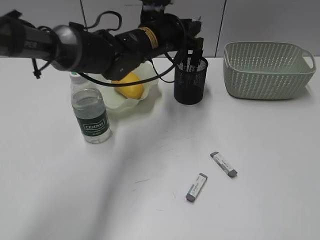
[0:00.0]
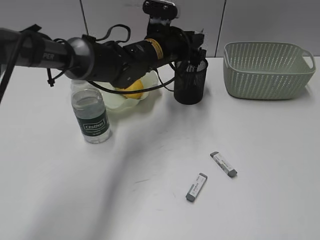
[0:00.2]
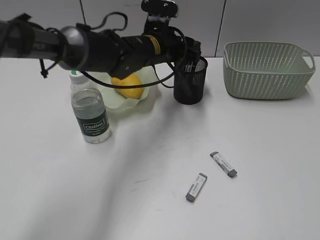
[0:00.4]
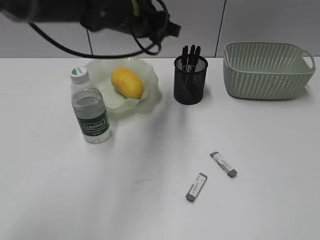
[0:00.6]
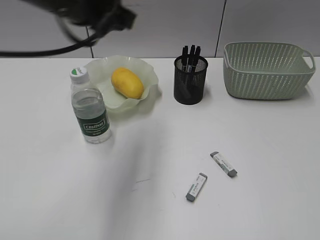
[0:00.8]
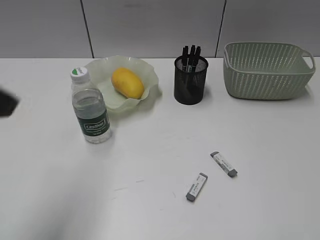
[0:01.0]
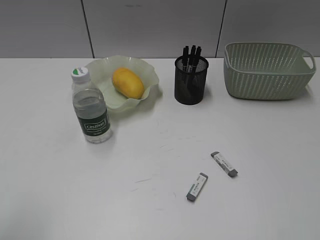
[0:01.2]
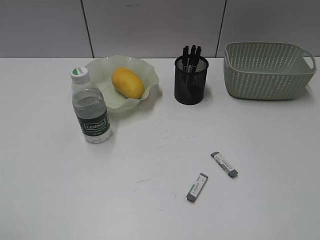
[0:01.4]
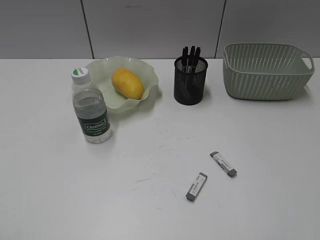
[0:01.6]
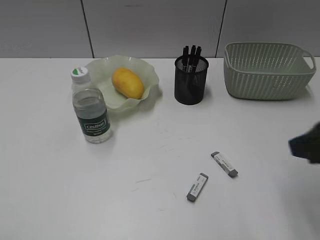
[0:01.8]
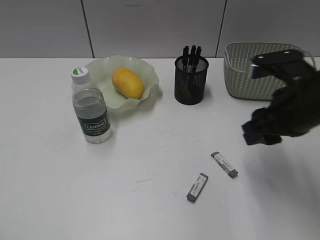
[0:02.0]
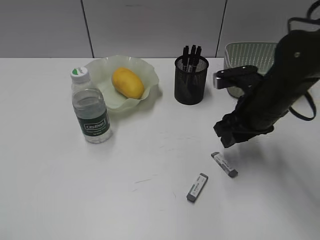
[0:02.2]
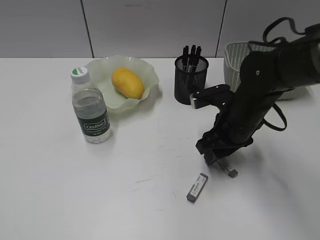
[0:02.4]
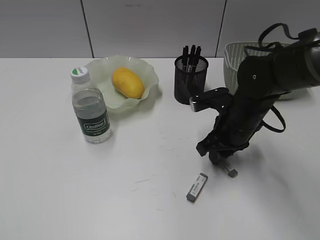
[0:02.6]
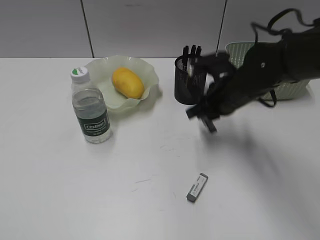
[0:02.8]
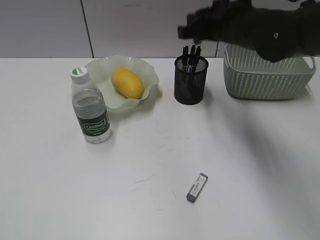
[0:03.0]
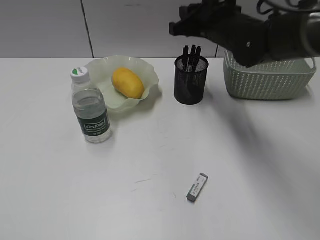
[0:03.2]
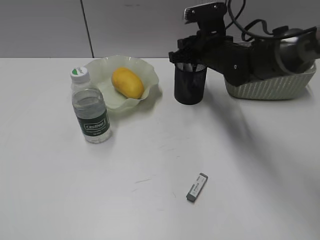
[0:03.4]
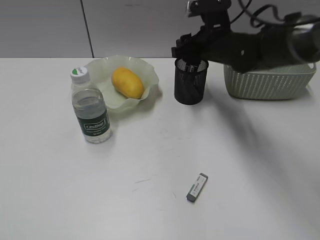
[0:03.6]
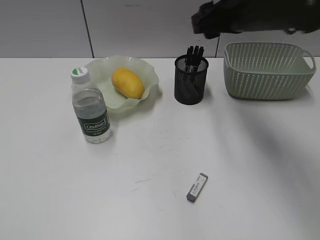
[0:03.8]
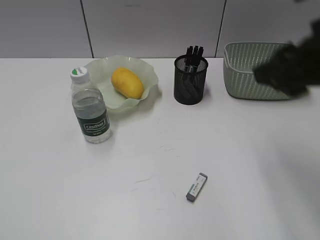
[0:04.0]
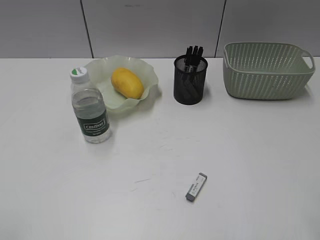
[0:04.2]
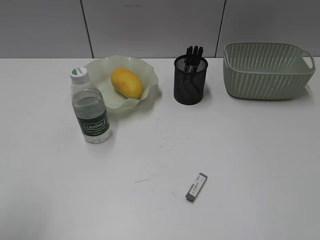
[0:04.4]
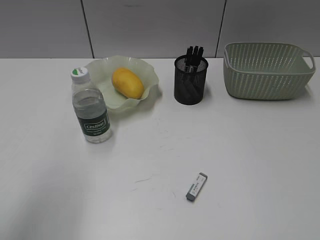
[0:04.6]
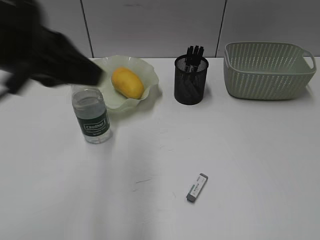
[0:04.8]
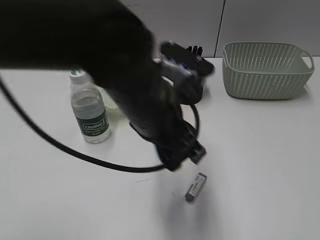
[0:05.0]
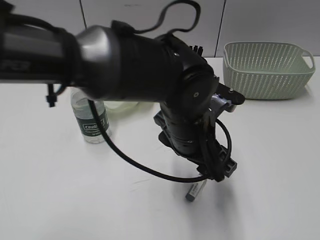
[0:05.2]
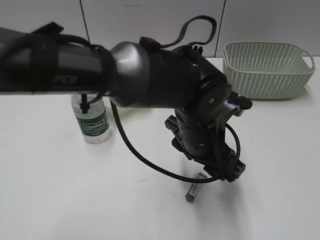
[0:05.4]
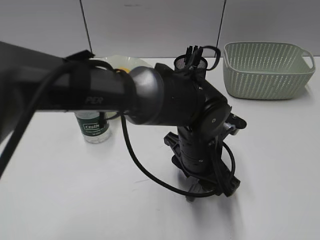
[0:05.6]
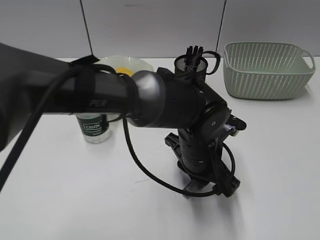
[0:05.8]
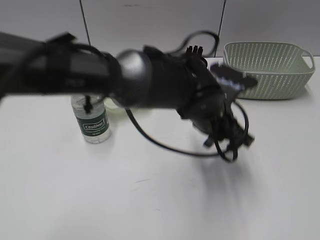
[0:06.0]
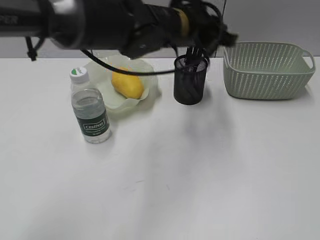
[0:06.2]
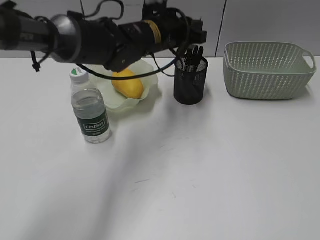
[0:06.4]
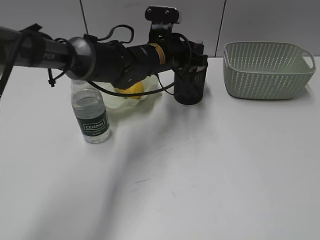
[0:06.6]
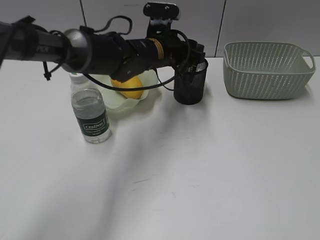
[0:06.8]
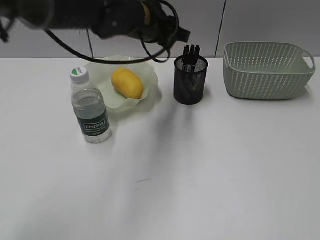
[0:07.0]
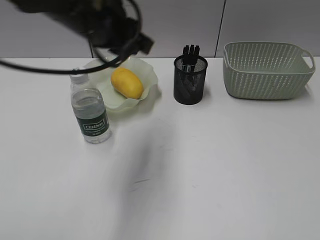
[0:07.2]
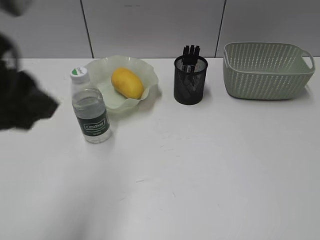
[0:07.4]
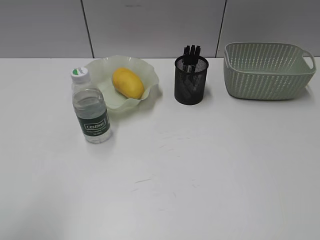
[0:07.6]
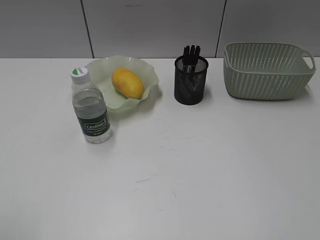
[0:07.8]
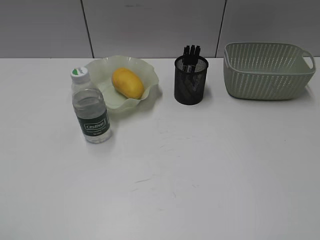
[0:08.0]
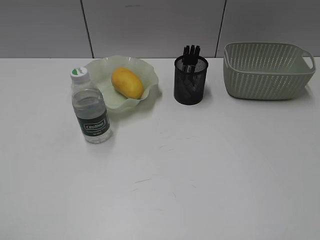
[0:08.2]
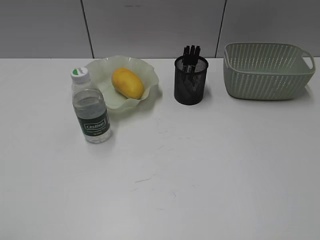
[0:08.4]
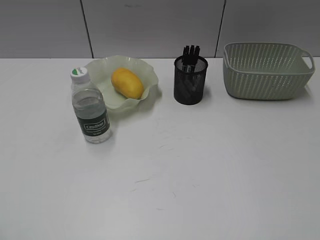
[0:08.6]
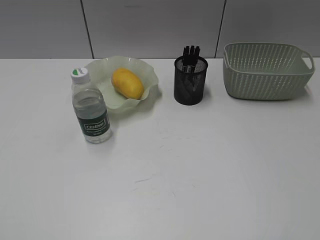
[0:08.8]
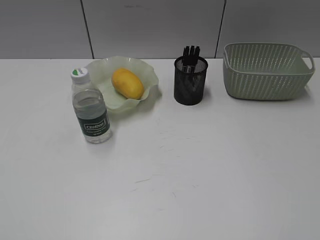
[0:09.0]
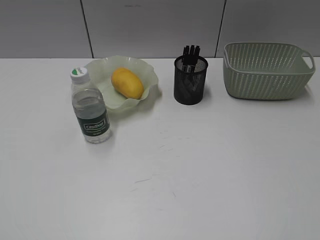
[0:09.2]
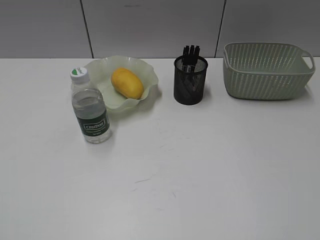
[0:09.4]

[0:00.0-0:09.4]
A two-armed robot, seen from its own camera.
Step, 0:00.6 to 0:02.6: Grasp the eraser with right gripper.
Step, 0:02.8 to 0:03.6: Place the eraser in pen holder with right gripper.
Step, 0:03.8 to 0:05.8: Grasp the eraser with left gripper.
Step, 0:06.0 to 0:06.8: Place the eraser in pen holder with left gripper.
0:00.0 to 0:01.6: The left gripper heads backward and to the left, covering approximately 50 cm.
0:01.6 to 0:03.2: The right gripper heads forward and to the left, covering approximately 40 cm, and closes.
0:03.2 to 0:04.8: The left gripper moves forward and to the right, some 25 cm. Meanwhile the right gripper travels backward and to the right by roughly 50 cm, and opens its fingers.
0:04.8 to 0:06.2: The left gripper is displaced to the right, forward and downward by some 25 cm, and opens and closes again.
0:06.2 to 0:07.8: The left gripper shifts some 50 cm to the left and backward, and opens its fingers.

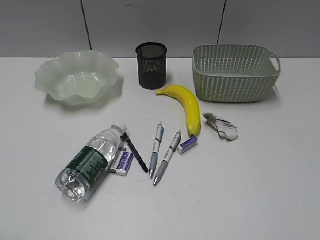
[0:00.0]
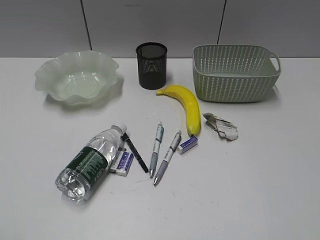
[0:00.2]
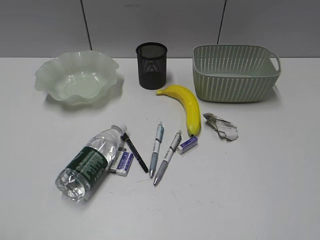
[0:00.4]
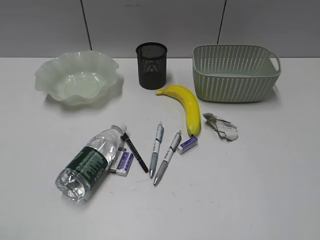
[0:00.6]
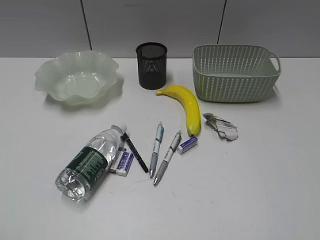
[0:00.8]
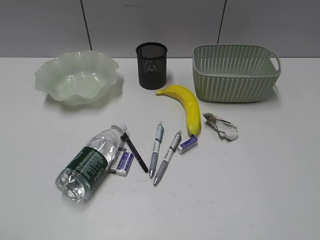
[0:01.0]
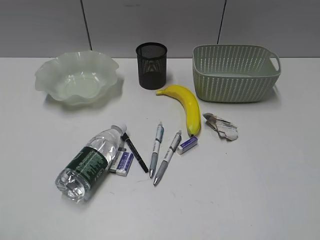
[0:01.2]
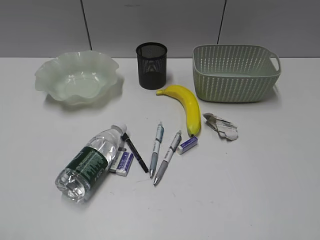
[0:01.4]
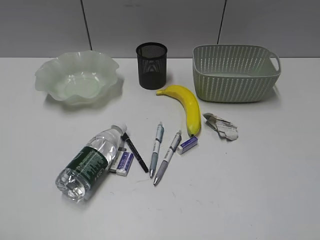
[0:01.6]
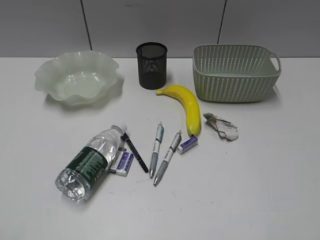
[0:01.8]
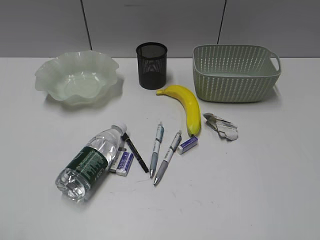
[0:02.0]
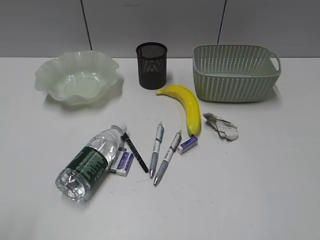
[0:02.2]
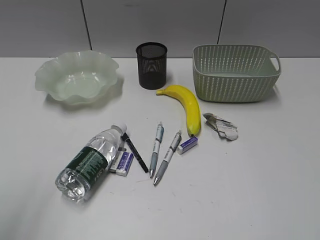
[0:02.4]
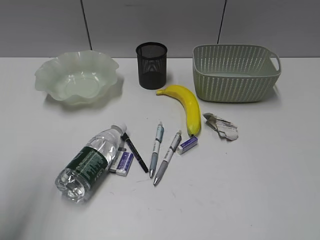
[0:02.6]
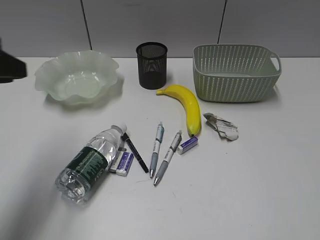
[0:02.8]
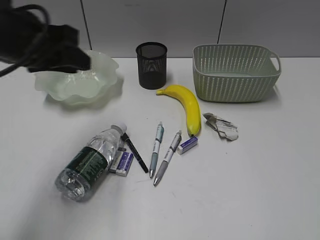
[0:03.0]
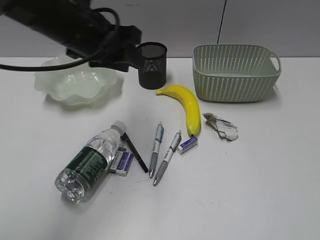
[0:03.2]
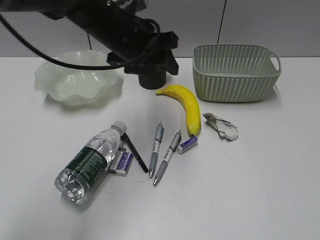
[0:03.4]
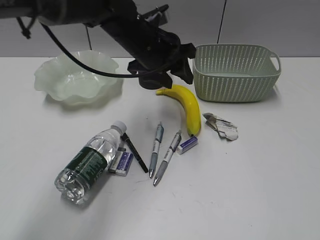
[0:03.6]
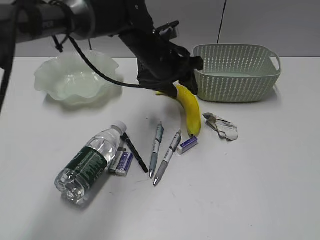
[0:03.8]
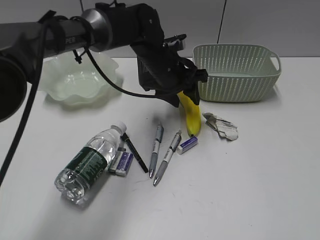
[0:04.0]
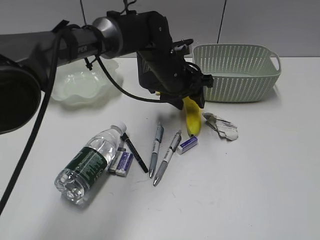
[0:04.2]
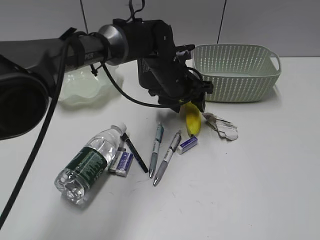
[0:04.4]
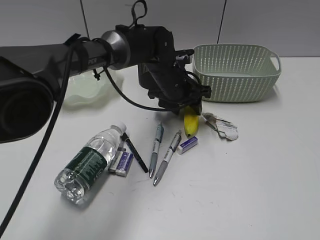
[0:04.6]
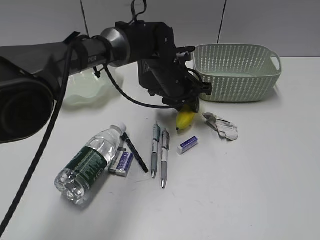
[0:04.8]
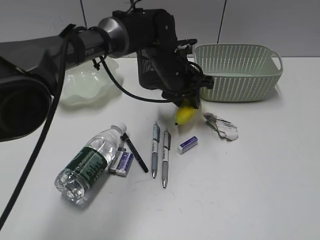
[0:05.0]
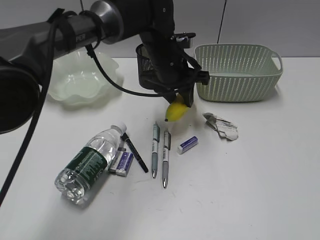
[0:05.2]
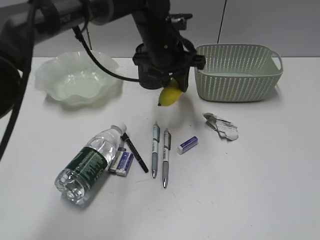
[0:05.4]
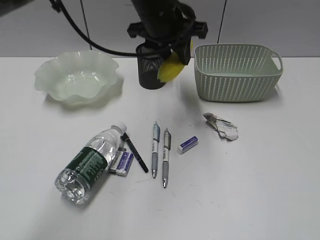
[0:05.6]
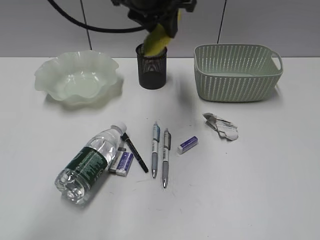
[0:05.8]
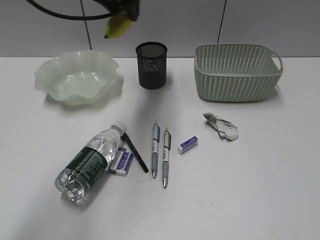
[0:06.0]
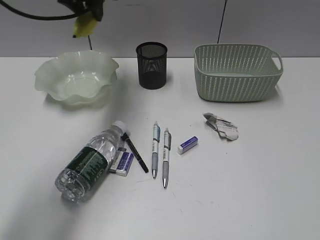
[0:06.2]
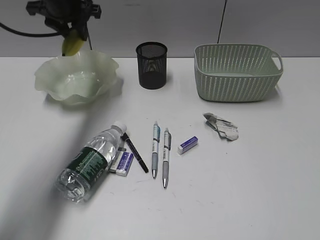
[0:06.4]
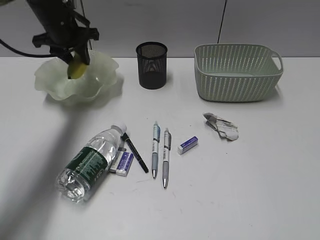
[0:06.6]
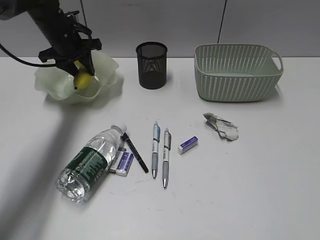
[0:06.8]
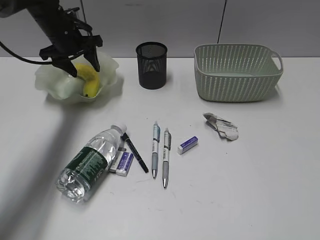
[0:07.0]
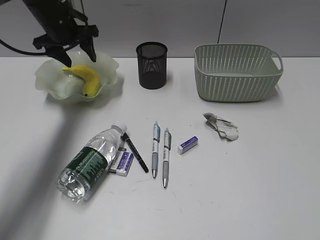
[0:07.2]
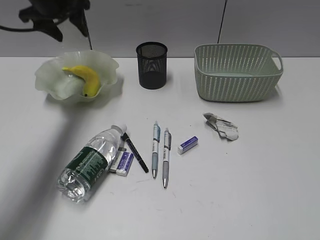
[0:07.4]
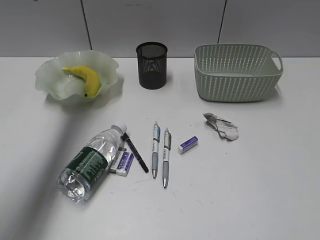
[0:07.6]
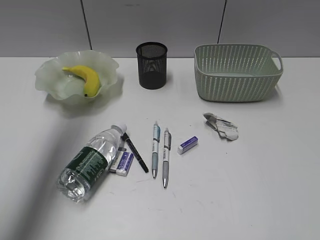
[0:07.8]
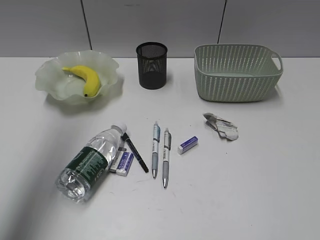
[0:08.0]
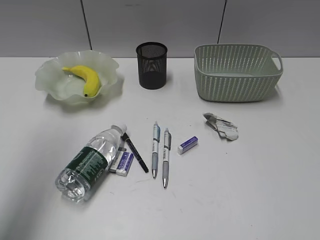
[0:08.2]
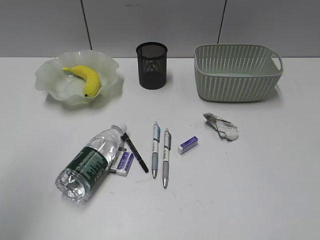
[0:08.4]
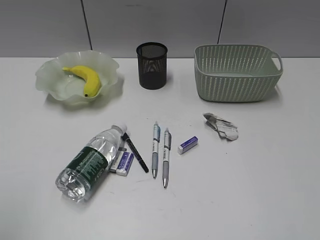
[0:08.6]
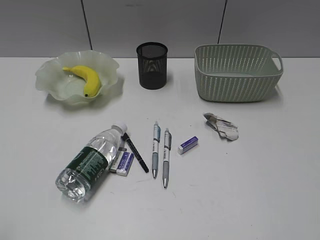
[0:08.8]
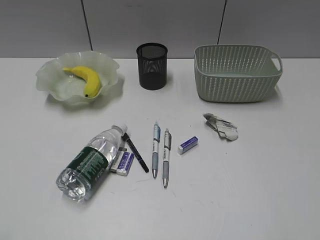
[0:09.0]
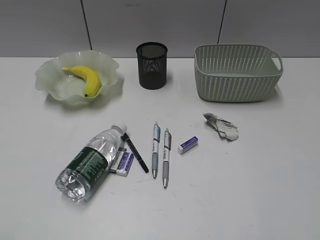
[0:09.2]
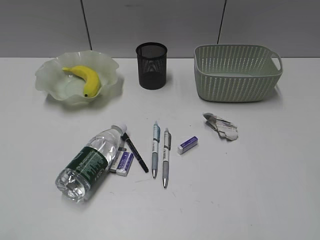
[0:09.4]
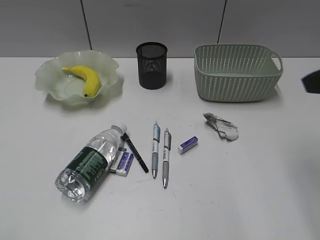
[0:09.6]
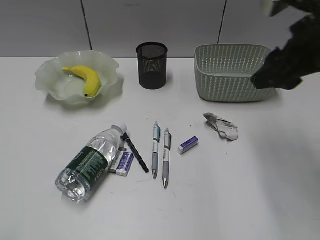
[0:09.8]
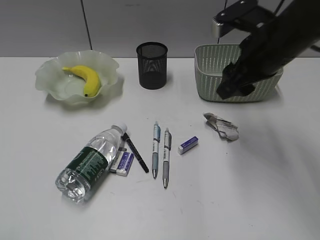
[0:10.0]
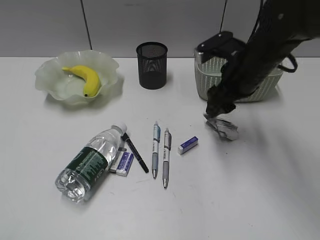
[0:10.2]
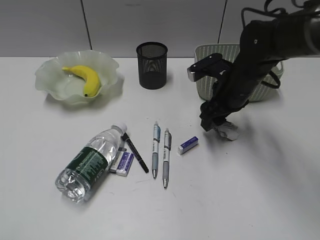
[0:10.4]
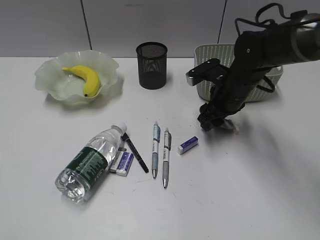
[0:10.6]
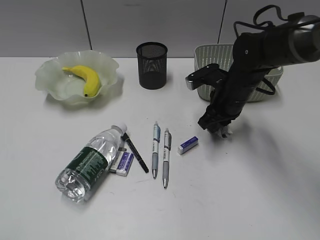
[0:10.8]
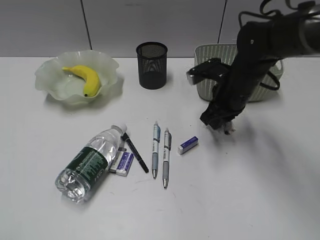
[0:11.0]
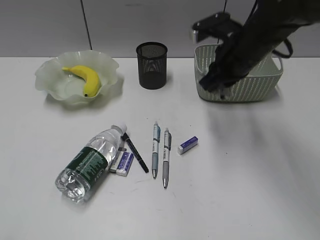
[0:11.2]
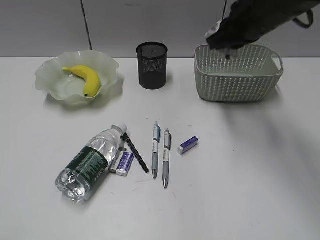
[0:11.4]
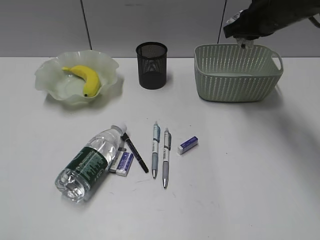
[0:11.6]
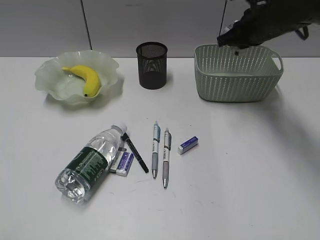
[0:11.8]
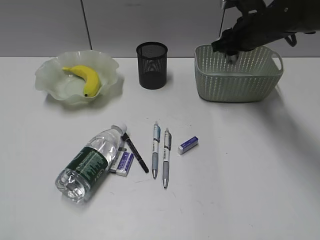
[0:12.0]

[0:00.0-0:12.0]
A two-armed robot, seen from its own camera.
Step, 0:02.0 to 0:04.6: Grasp the banana with left gripper.
Step, 0:04.8 to 0:07.2: Place the banana in the plate with left gripper.
Step, 0:07.4 to 0:10.8: Grasp the waste paper with right gripper.
0:01.6 to 0:03.0: The left gripper shifts approximately 30 cm forward and to the right.
0:03.0 to 0:04.4: The left gripper shifts approximately 30 cm to the right, downward and forward, and opens its fingers.
0:04.4 to 0:06.0: The left gripper is displaced upward and to the left by approximately 20 cm, and closes.
0:06.0 to 0:07.6: The left gripper moves to the left, approximately 15 cm, goes downward and returns, roughly 15 cm each way, and opens.
0:07.6 to 0:09.0: The left gripper travels backward by some 50 cm.
0:09.0 to 0:10.4: The right gripper travels forward, to the left and downward by approximately 40 cm, and opens.
0:10.4 to 0:12.0: The right gripper heads forward and upward, covering approximately 10 cm, and closes.
